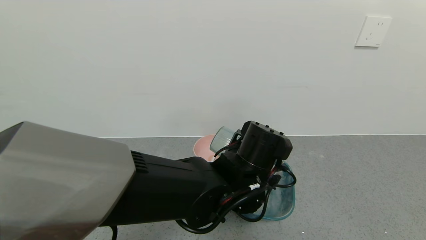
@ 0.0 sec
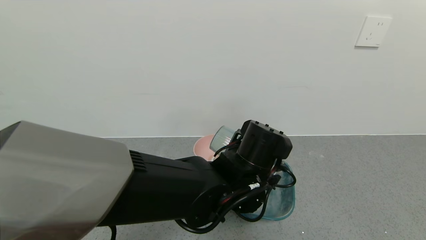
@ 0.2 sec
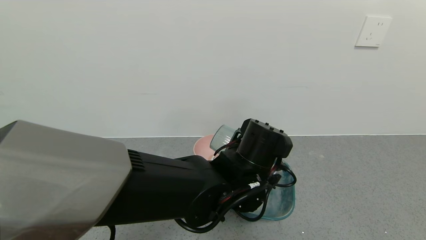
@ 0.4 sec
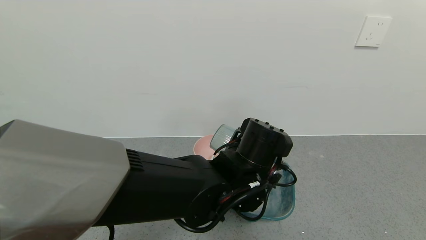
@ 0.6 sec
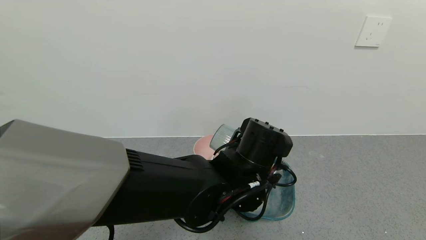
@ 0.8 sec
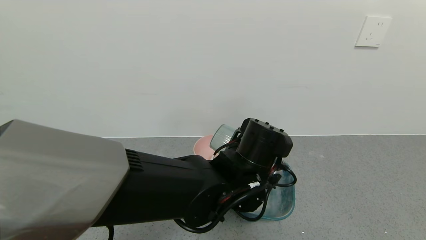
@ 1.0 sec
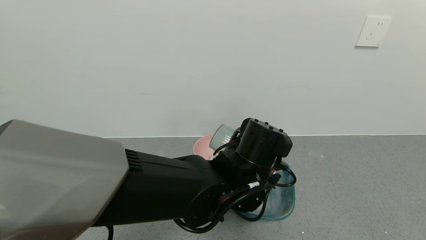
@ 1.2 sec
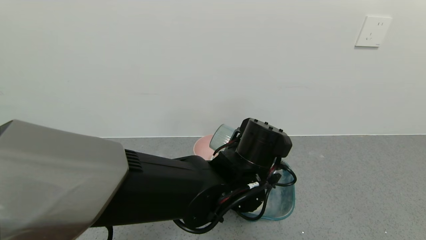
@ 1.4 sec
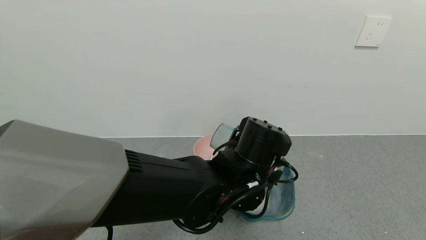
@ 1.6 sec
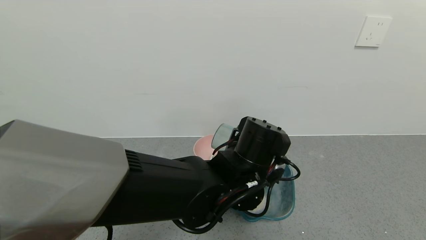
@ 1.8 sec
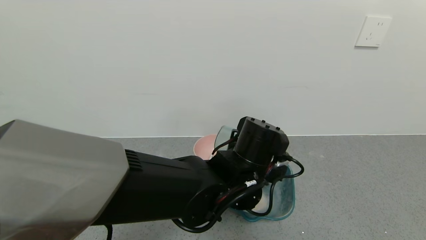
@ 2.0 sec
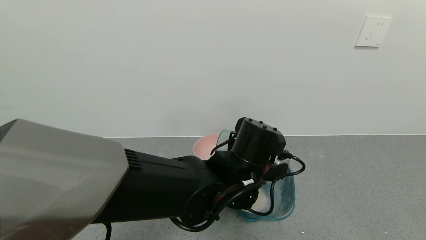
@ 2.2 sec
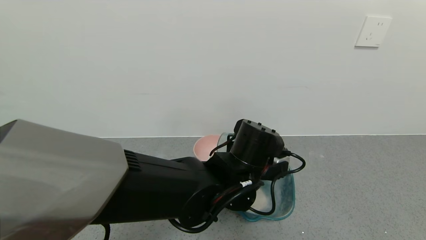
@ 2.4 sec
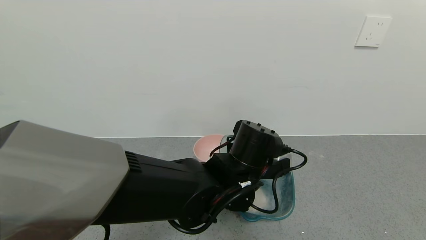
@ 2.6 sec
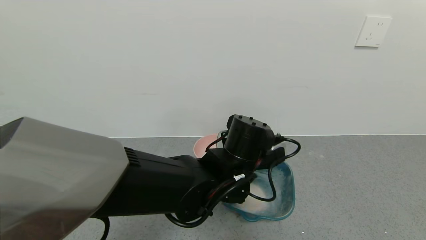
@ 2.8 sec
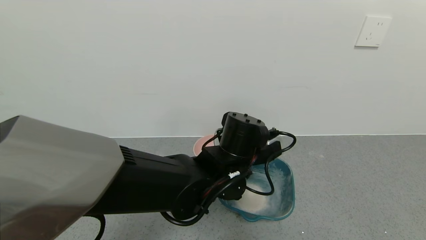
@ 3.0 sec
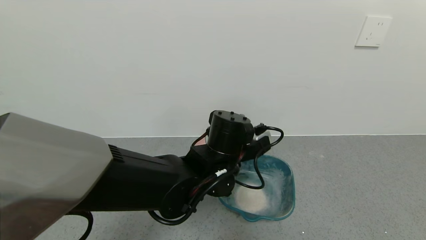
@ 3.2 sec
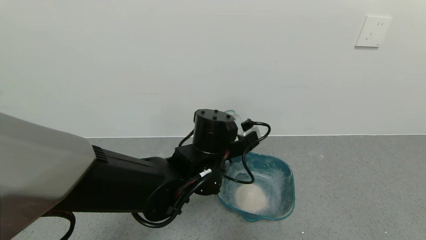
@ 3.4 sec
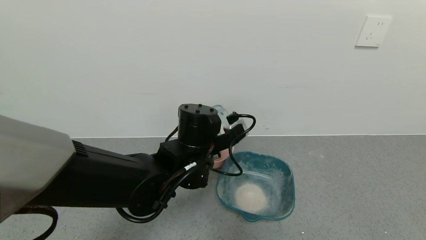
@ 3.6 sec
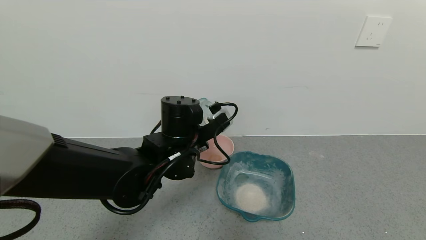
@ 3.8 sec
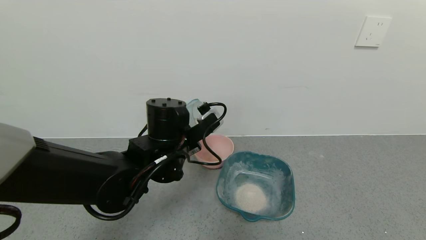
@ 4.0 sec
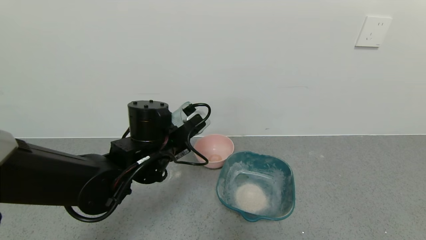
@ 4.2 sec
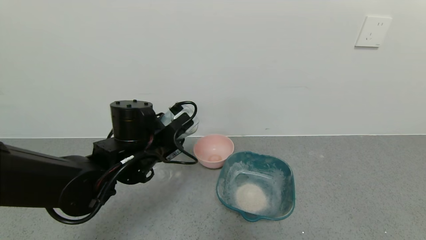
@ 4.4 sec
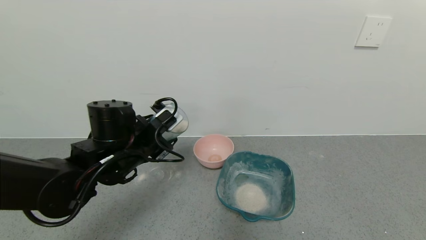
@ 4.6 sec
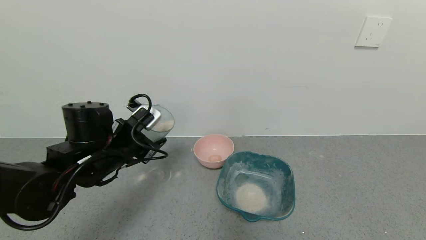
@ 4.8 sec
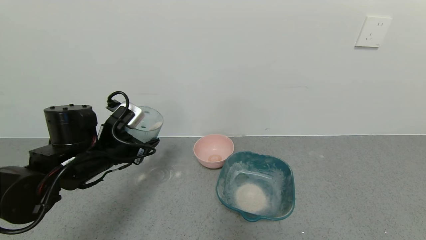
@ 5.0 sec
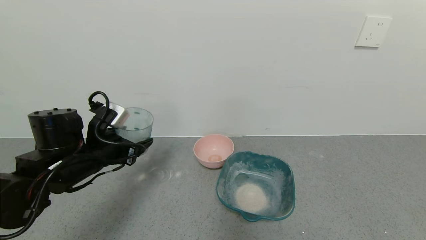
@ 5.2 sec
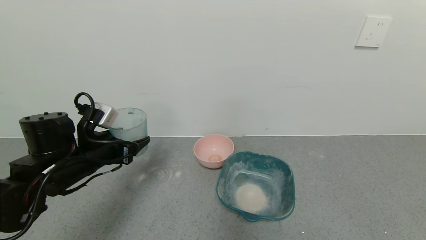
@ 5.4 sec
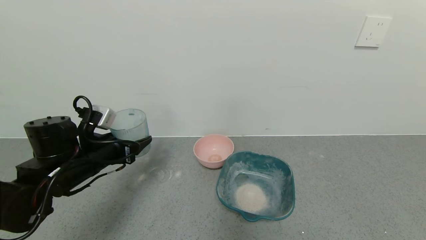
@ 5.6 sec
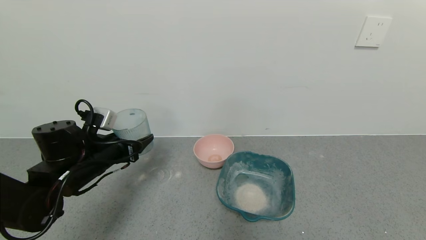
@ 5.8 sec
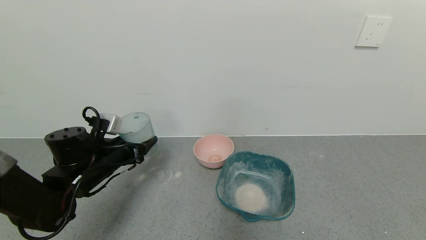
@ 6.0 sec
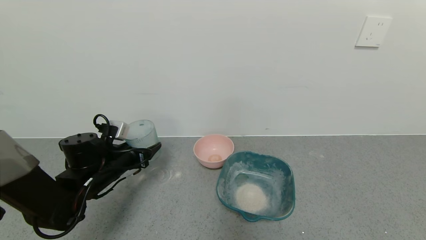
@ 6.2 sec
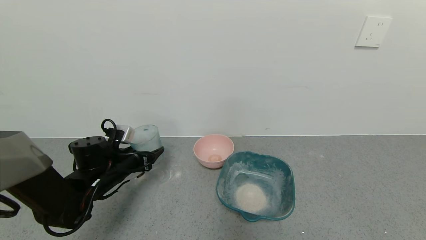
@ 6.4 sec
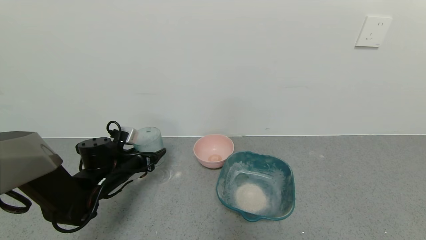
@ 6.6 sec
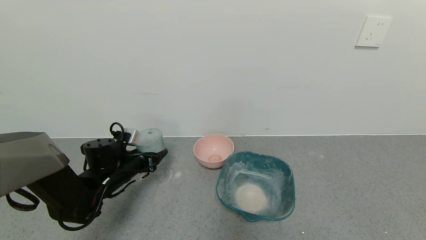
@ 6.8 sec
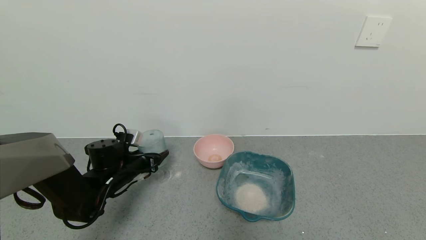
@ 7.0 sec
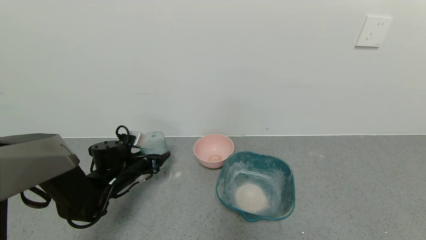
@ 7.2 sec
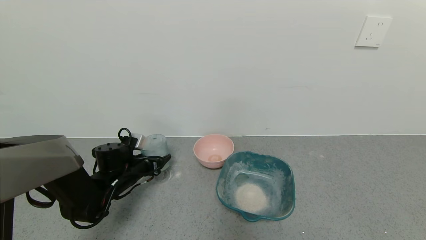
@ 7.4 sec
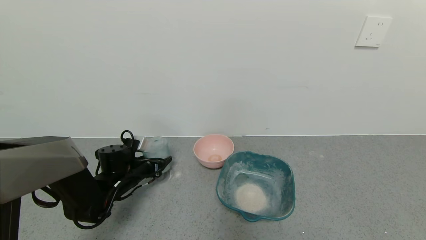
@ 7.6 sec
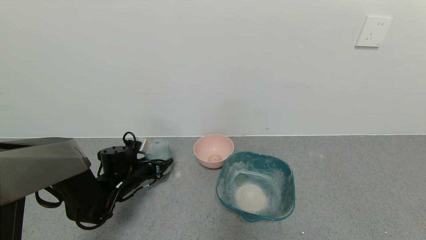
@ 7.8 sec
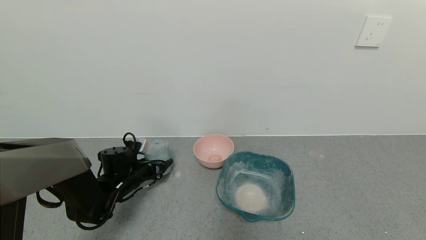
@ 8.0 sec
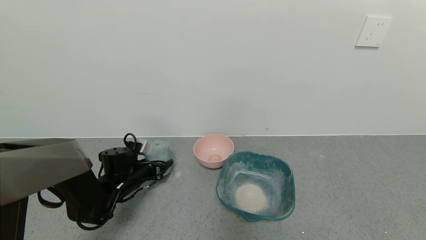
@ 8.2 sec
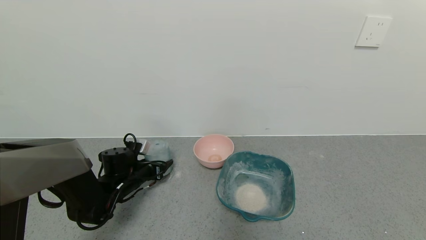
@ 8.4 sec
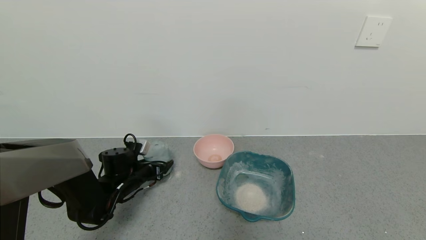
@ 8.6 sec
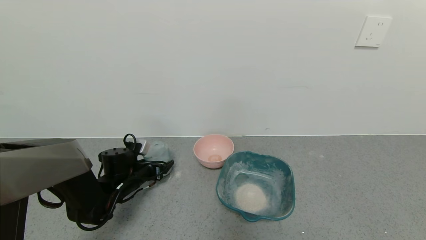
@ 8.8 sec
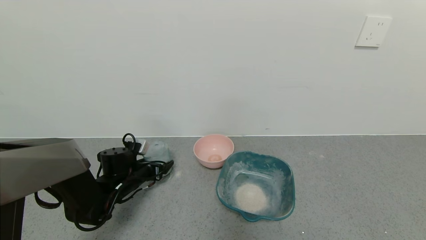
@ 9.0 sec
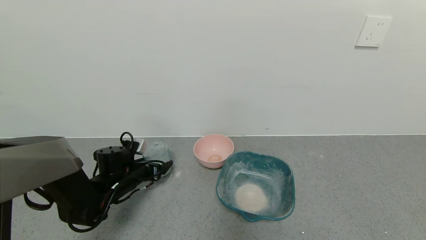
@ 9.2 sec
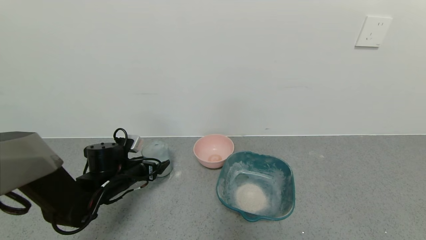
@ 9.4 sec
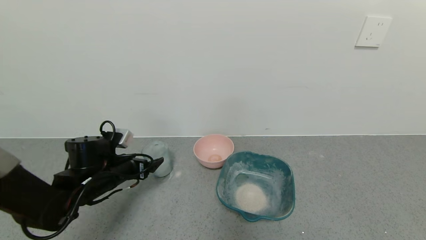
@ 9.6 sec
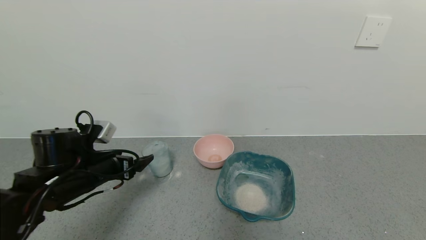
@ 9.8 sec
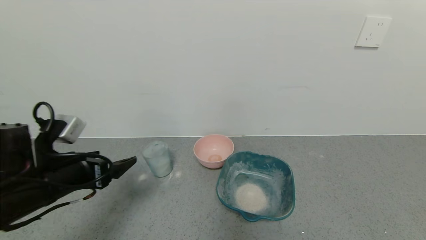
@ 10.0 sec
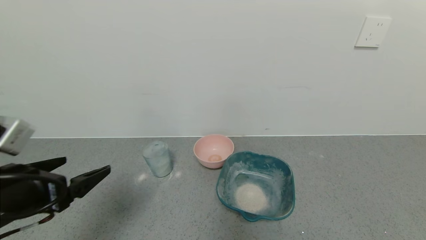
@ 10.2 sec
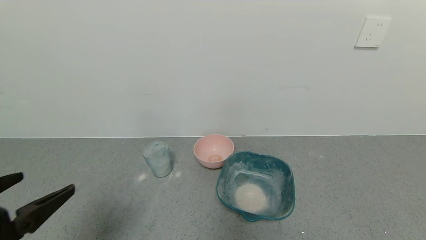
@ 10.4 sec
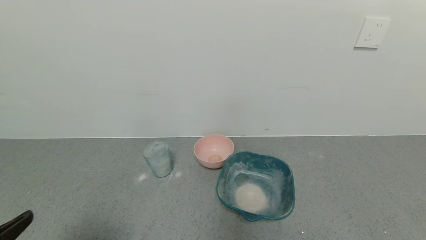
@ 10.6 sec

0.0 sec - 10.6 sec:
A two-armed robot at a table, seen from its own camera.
Task of the whole recording: use a gripper to pick up the cup and pour the powder into a bowl or tray.
Step, 0.0 sec - 2.8 sec: Pour the powder into the pink bowl with the left gripper.
Step, 3.0 sec - 9.6 sec: Place the glass cup down with the left gripper.
0.0 sec - 1.6 sec: Both grippers stay about where they are.
3.0 sec - 4.6 sec: The left gripper shifts some 20 cm to the left.
4.6 sec - 6.0 sec: The left gripper shifts about 10 cm to the left and downward.
6.0 sec - 7.6 sec: The left gripper heads downward, covering some 10 cm.
7.6 sec - 9.0 sec: The left gripper opens up.
9.0 sec - 10.6 sec: The left gripper goes some 40 cm backward and upward.
